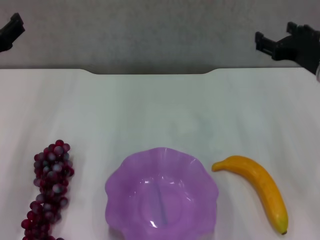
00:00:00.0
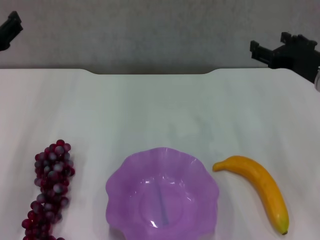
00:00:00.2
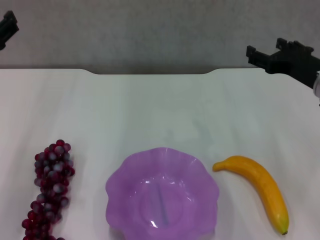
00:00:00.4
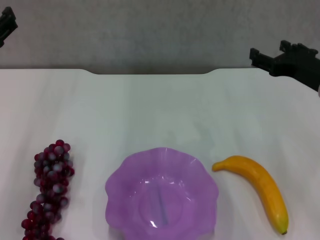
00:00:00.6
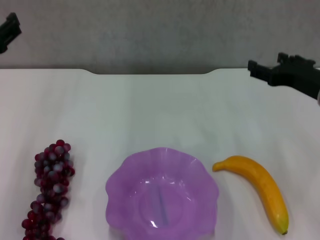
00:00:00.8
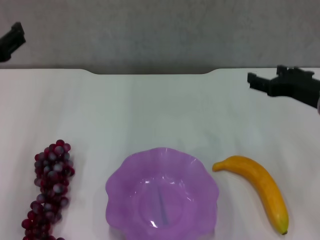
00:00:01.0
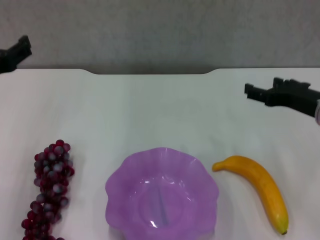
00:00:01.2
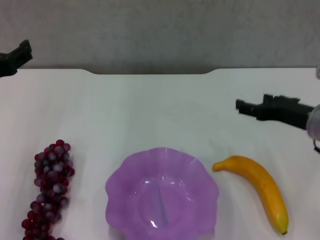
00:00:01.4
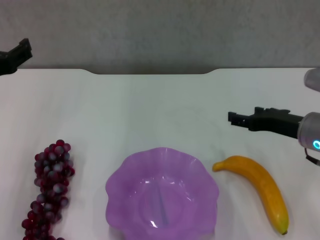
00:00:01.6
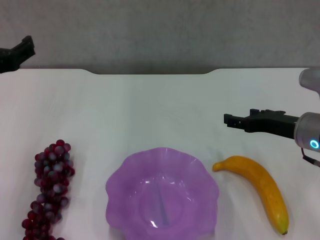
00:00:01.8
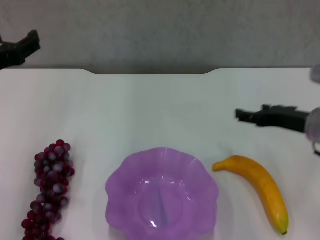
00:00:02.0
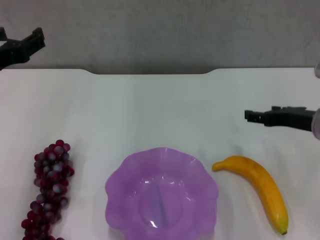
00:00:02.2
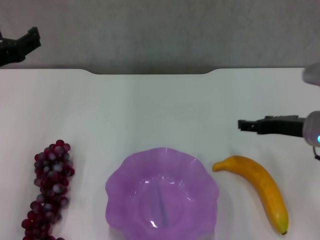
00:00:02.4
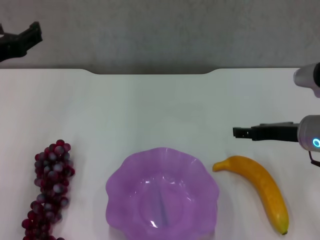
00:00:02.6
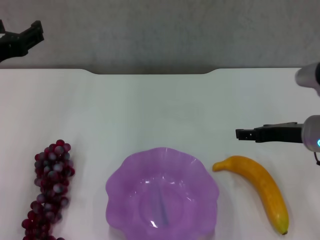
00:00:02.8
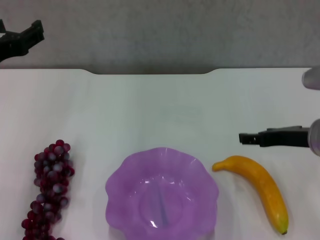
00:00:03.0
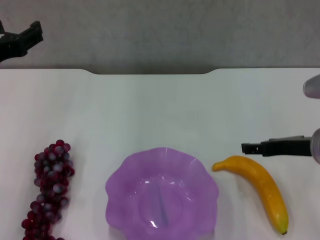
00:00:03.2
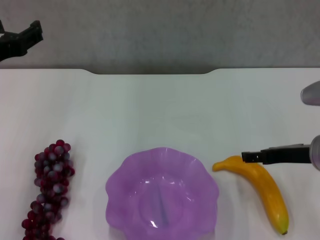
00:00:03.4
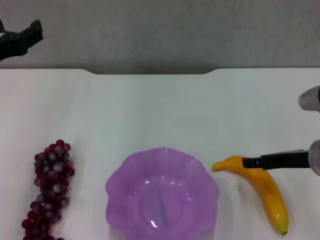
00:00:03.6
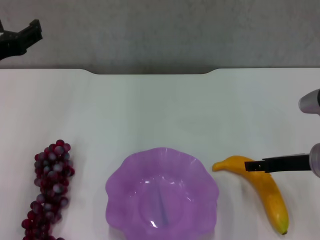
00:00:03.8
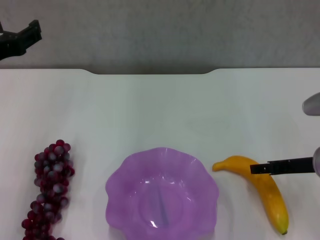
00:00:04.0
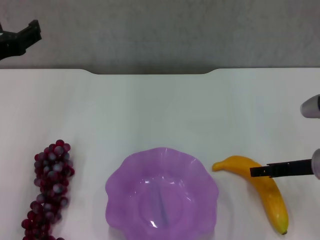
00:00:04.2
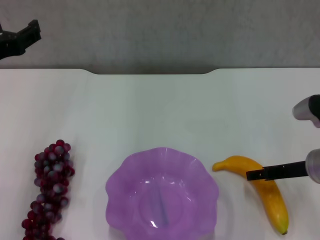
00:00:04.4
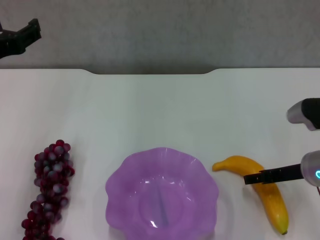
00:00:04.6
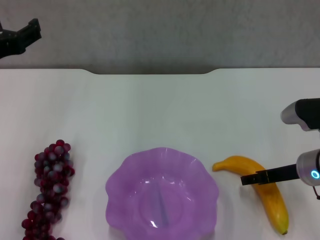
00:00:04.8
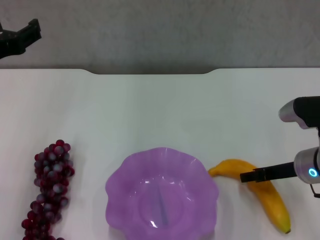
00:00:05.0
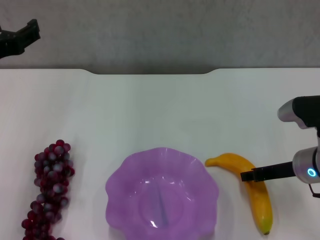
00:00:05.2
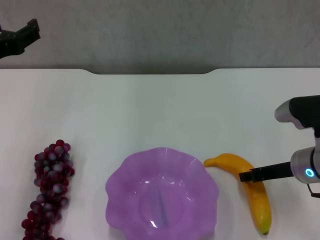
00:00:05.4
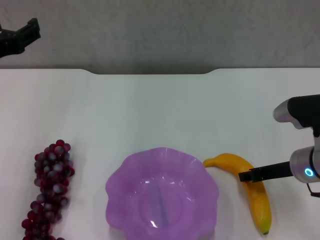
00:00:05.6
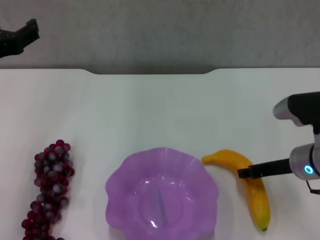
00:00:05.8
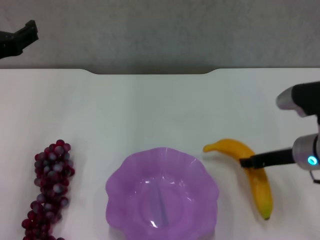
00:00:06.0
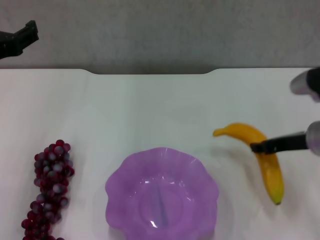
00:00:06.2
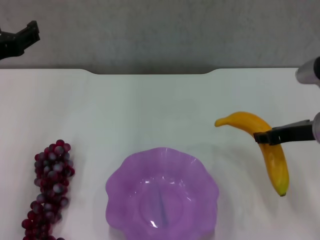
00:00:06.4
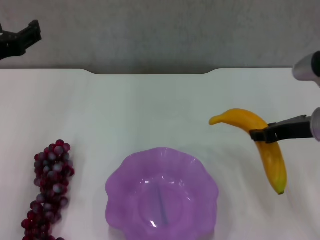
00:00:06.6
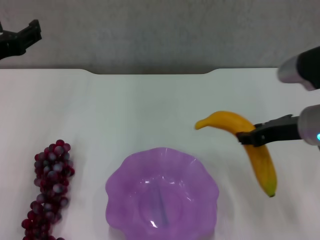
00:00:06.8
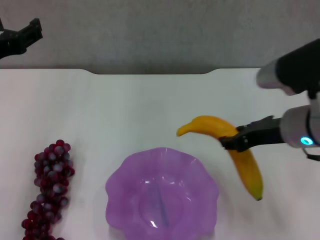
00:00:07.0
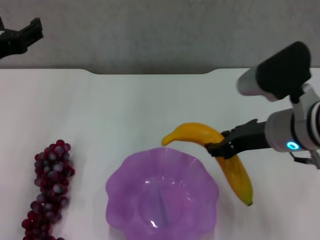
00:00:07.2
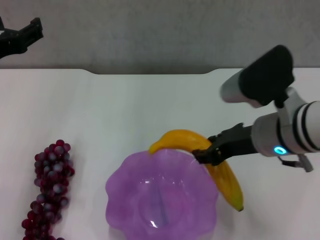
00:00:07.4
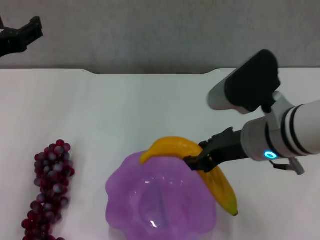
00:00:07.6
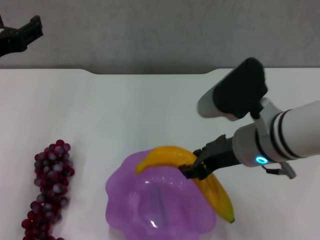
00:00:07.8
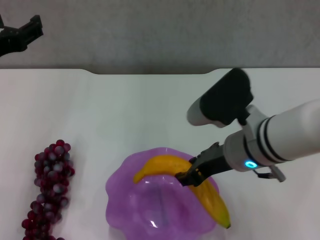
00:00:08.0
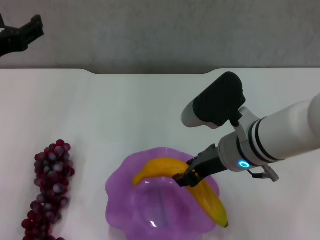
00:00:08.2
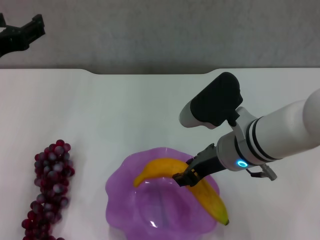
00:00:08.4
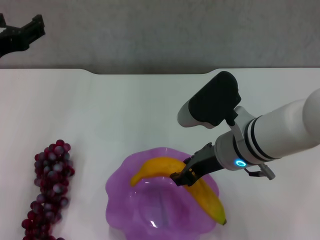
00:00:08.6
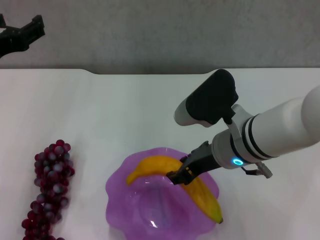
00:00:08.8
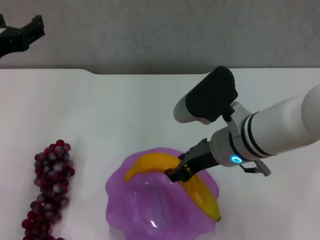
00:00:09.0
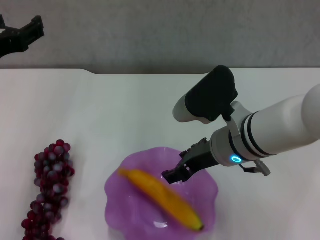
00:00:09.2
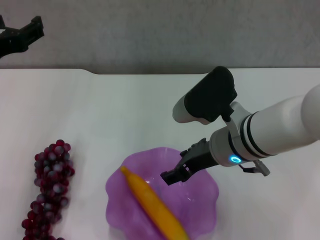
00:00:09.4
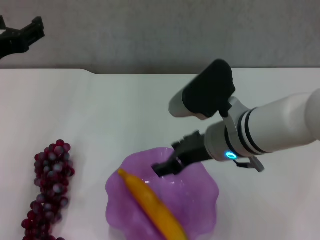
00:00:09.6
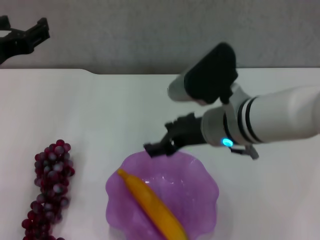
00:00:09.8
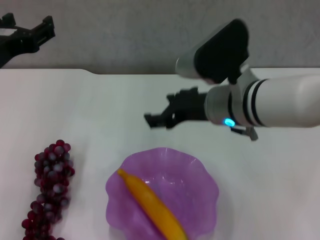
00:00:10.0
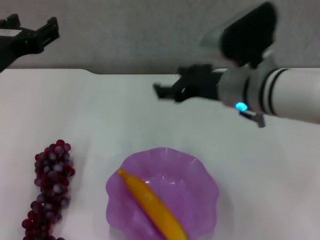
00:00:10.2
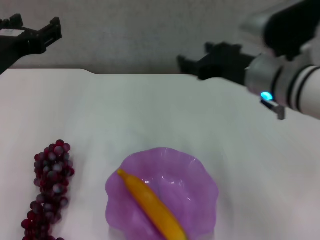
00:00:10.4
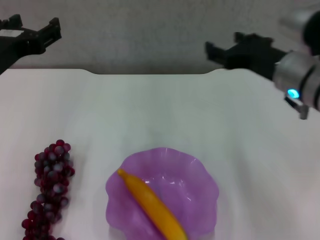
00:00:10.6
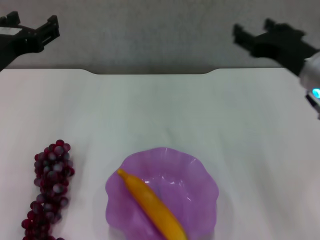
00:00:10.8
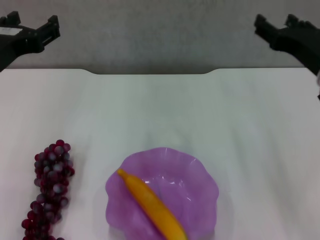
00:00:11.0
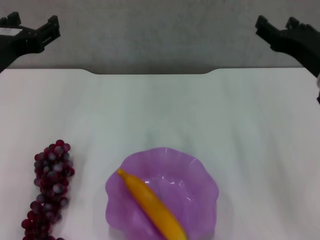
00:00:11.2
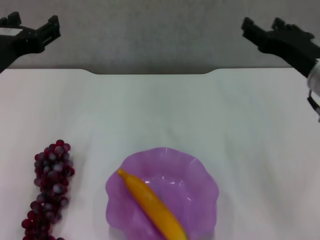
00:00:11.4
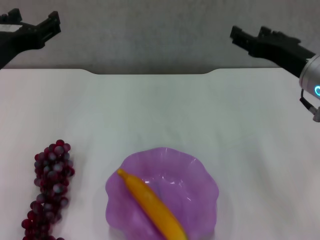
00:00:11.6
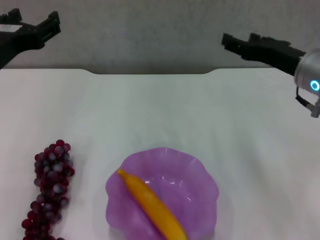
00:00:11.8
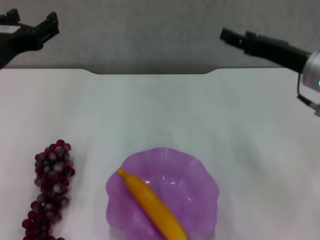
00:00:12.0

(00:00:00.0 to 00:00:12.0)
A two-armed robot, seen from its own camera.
Step, 00:00:00.0 - 00:00:05.6: Grasp the banana with right gripper.
Step, 00:00:05.8 - 00:00:09.4: Place the banana in the purple plate with right gripper.
00:00:00.0 - 00:00:01.6: The right gripper travels downward by some 5 cm.
00:00:01.6 - 00:00:03.0: The grippers stay close to where they were, moving slightly.
00:00:03.0 - 00:00:04.4: The right gripper heads downward, covering some 5 cm.
00:00:04.4 - 00:00:06.0: The right gripper closes up.
00:00:06.0 - 00:00:07.6: The right gripper is displaced to the left and upward by roughly 10 cm.
00:00:07.6 - 00:00:09.0: The grippers move only a little.
00:00:09.0 - 00:00:10.4: The right gripper is displaced upward by about 5 cm, and opens.
00:00:10.4 - 00:00:12.0: The right gripper goes about 10 cm to the right.

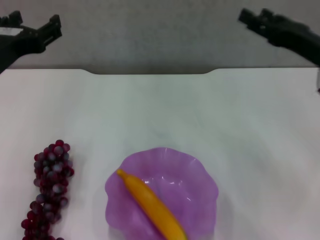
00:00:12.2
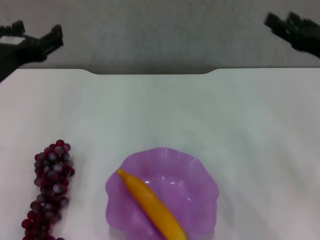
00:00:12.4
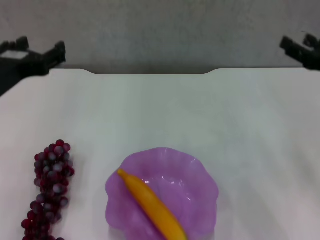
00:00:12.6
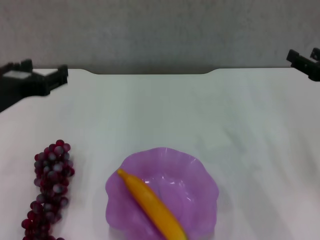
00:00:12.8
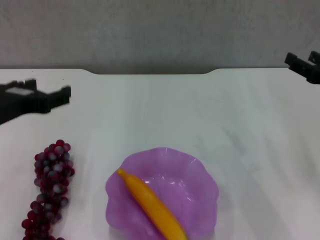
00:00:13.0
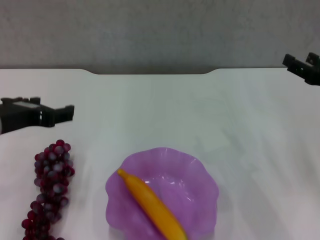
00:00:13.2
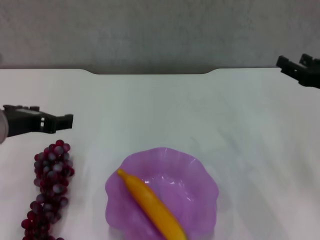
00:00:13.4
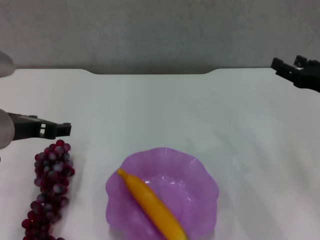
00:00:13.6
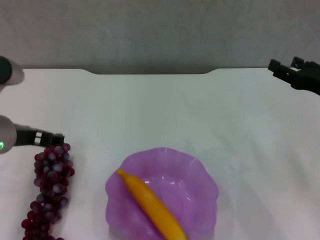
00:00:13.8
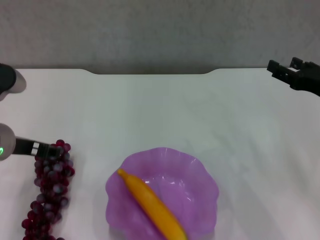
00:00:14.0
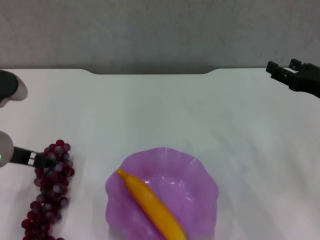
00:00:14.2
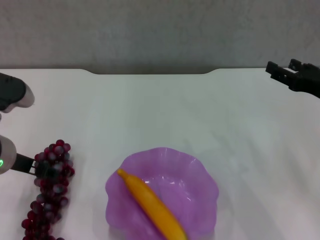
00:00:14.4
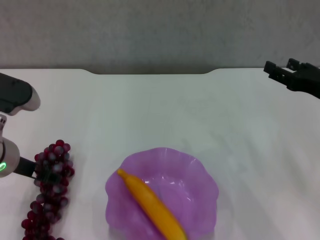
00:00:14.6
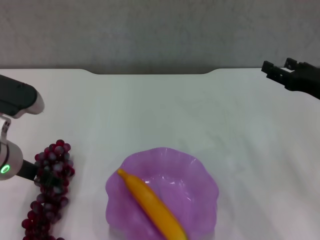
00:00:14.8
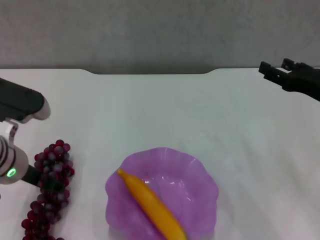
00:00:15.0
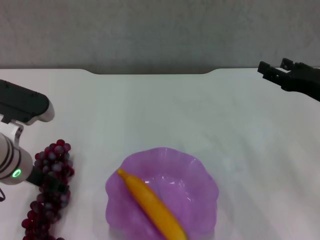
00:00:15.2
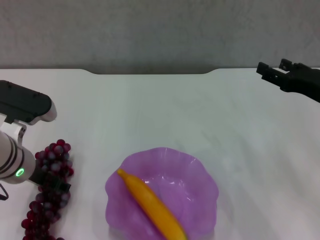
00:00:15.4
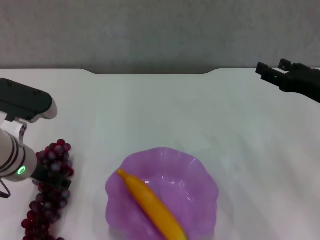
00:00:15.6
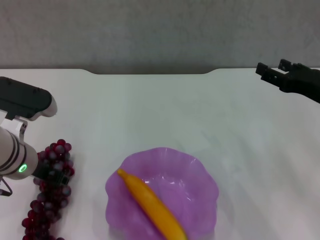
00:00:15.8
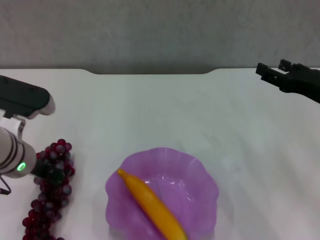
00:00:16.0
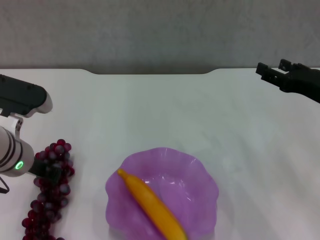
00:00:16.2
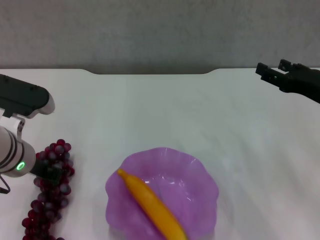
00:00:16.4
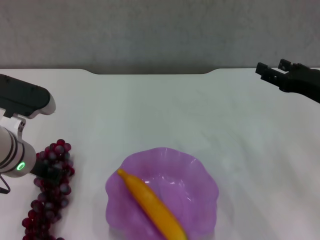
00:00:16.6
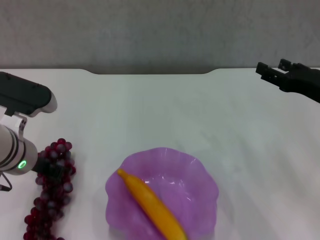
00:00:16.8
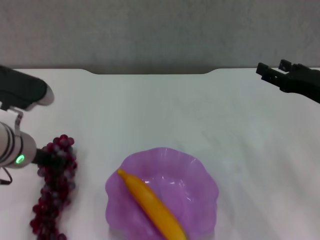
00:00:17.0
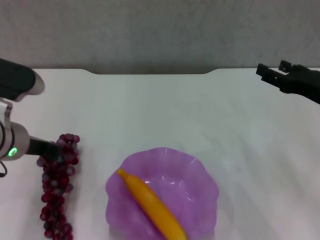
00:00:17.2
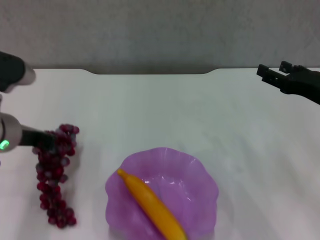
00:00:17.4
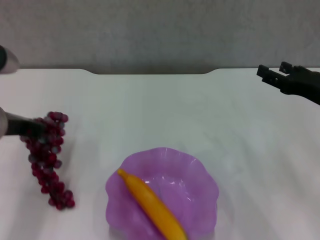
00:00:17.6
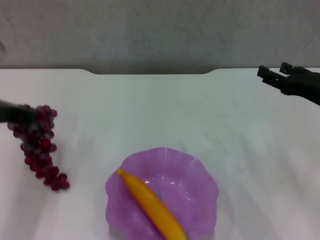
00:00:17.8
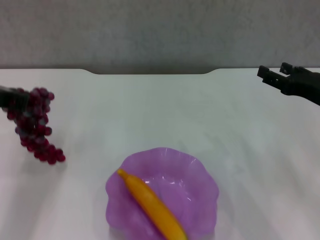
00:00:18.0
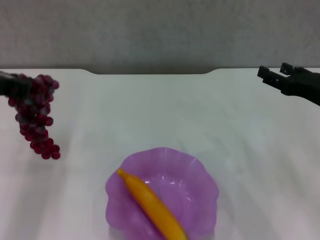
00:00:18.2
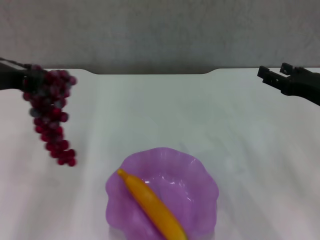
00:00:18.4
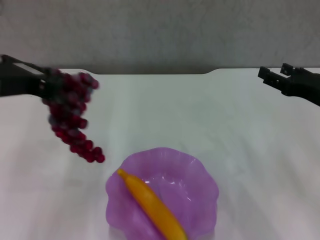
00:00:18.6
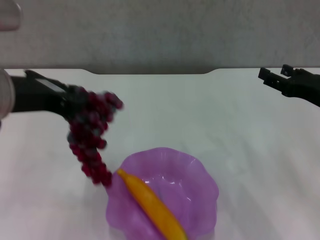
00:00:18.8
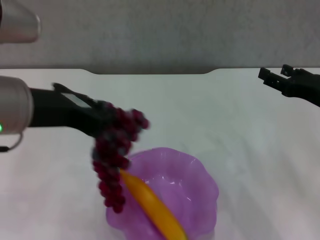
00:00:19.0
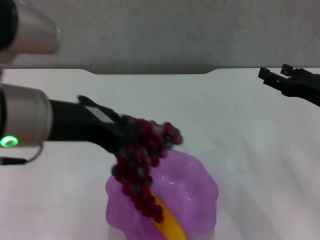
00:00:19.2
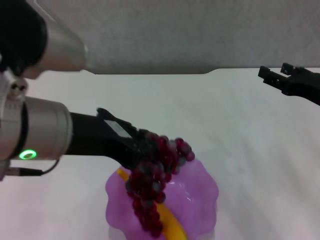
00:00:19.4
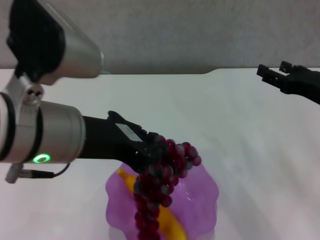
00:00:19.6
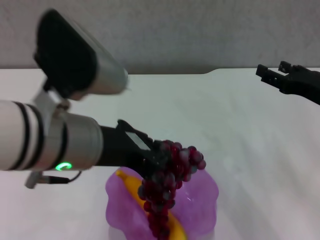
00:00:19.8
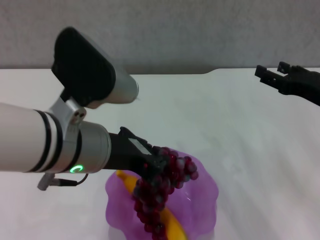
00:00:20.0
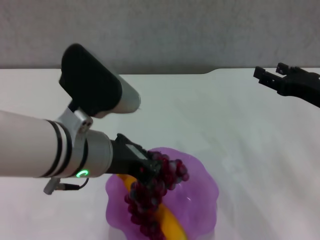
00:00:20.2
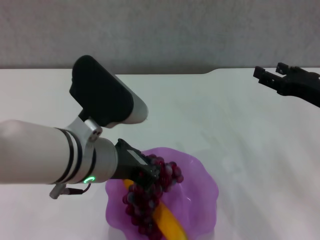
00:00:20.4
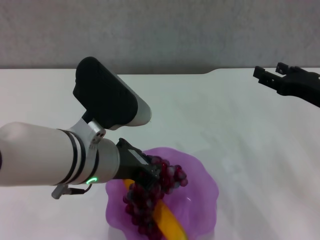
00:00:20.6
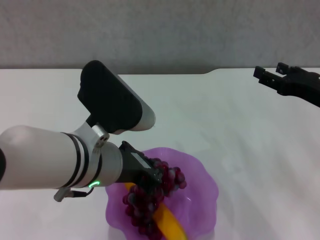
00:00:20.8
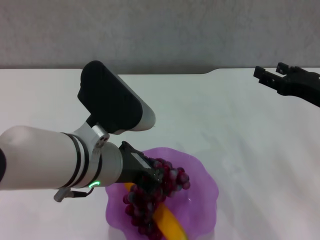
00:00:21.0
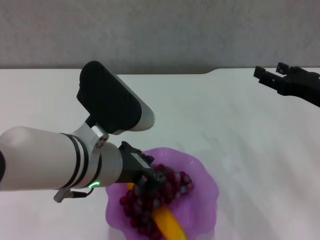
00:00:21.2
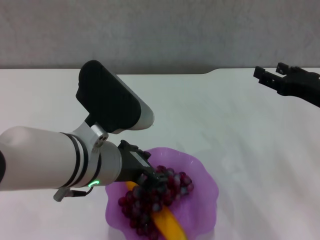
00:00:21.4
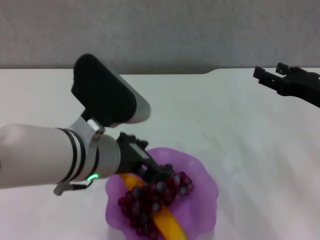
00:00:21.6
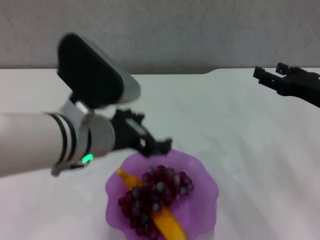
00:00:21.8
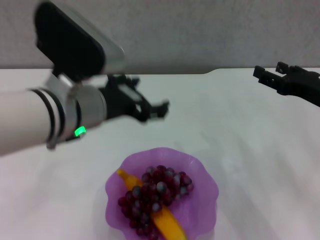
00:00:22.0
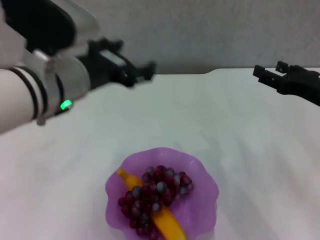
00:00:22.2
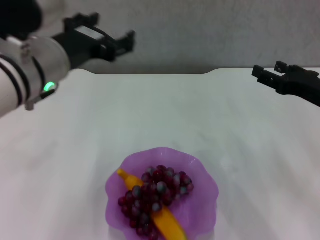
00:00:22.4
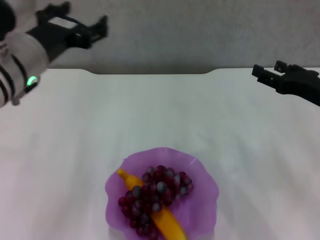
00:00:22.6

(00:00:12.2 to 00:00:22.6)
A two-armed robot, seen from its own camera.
Step, 00:00:12.2 - 00:00:16.8: Grasp the grape with left gripper.
Step, 00:00:17.0 - 00:00:21.6: Place the grape in the purple plate with left gripper.
00:00:12.2 - 00:00:13.6: The right gripper changes place by some 5 cm.
00:00:13.6 - 00:00:15.2: The left gripper heads downward, covering about 5 cm.
00:00:15.2 - 00:00:16.6: The left gripper closes up.
00:00:16.6 - 00:00:18.2: The left gripper moves upward, about 10 cm.
00:00:18.2 - 00:00:19.6: The left gripper is displaced to the right and backward by about 15 cm.
00:00:19.6 - 00:00:21.2: The left gripper goes about 10 cm downward.
00:00:21.2 - 00:00:22.6: The left gripper goes roughly 10 cm to the left and forward, and opens its fingers.
